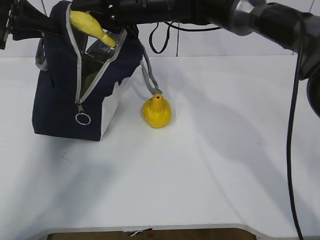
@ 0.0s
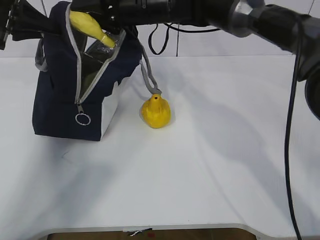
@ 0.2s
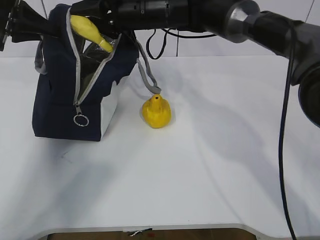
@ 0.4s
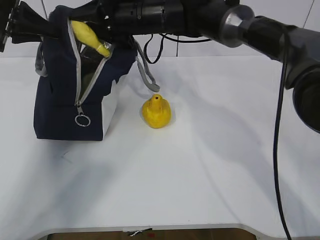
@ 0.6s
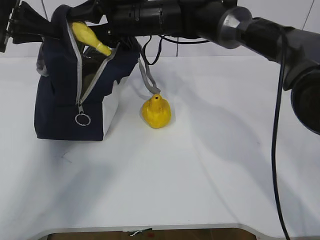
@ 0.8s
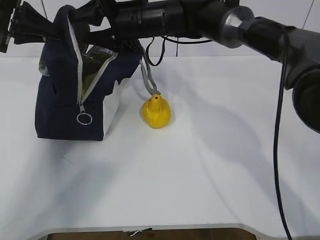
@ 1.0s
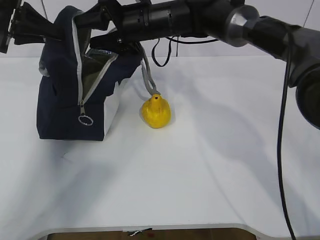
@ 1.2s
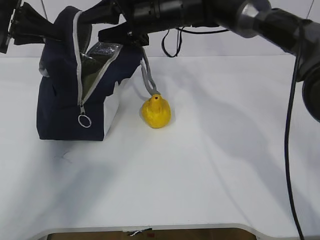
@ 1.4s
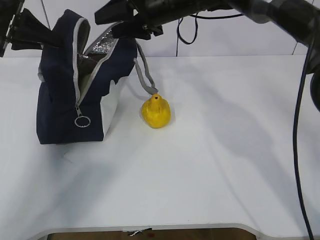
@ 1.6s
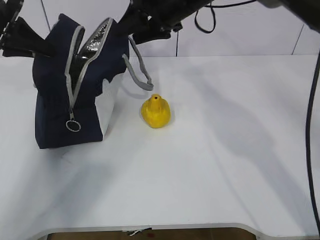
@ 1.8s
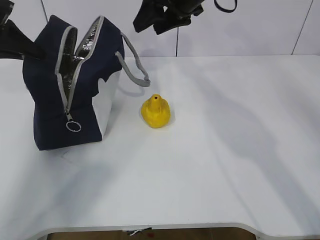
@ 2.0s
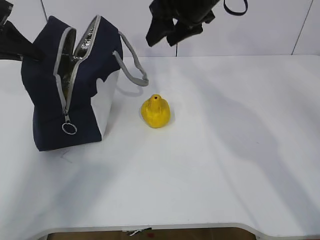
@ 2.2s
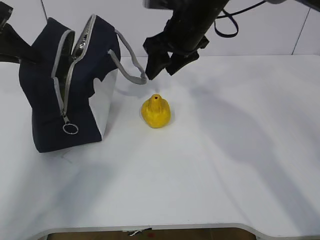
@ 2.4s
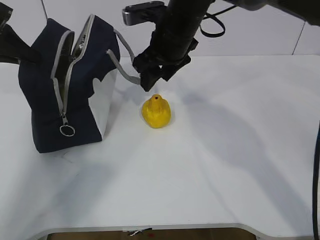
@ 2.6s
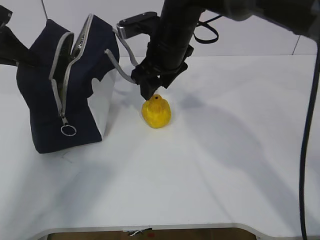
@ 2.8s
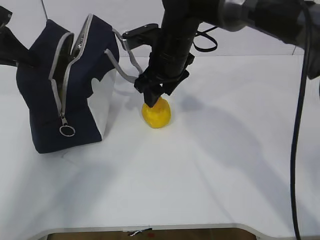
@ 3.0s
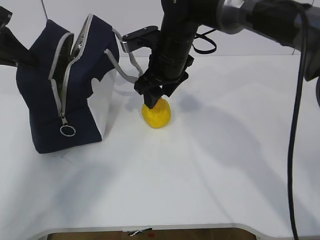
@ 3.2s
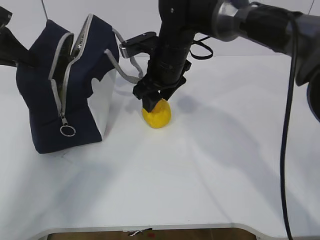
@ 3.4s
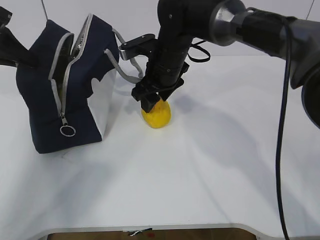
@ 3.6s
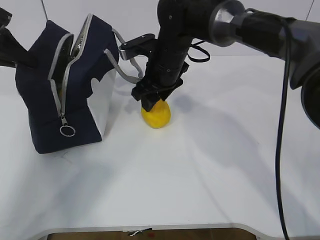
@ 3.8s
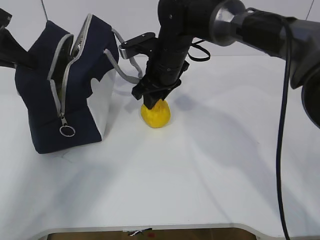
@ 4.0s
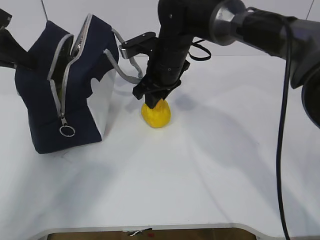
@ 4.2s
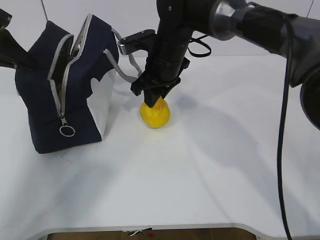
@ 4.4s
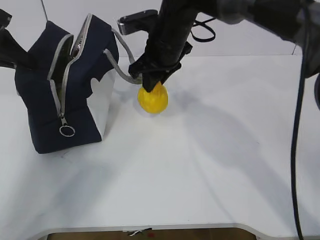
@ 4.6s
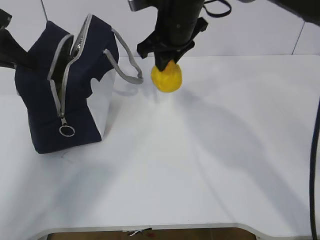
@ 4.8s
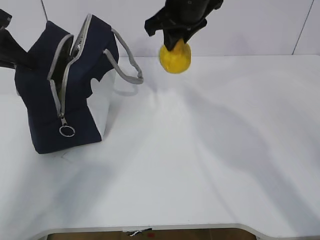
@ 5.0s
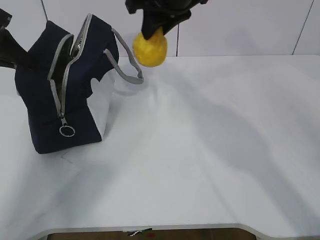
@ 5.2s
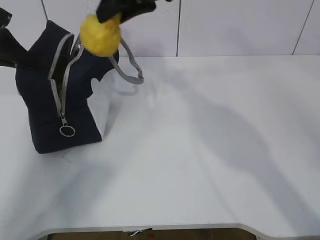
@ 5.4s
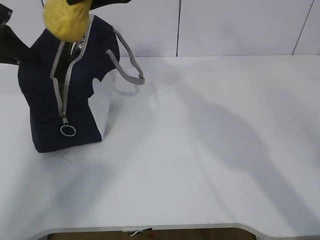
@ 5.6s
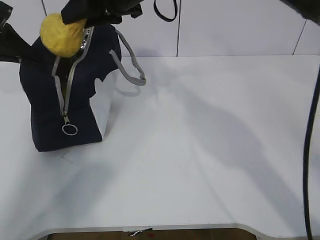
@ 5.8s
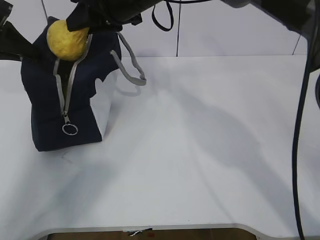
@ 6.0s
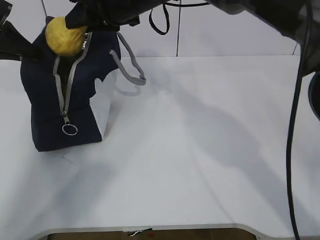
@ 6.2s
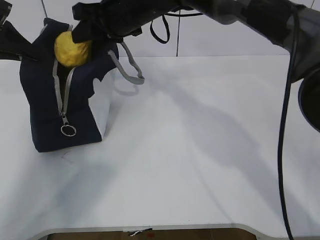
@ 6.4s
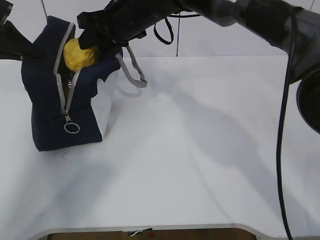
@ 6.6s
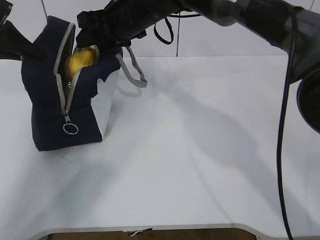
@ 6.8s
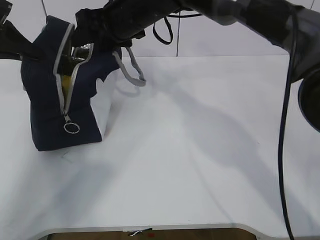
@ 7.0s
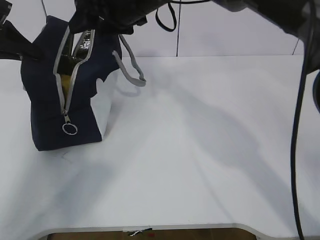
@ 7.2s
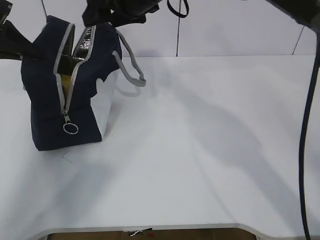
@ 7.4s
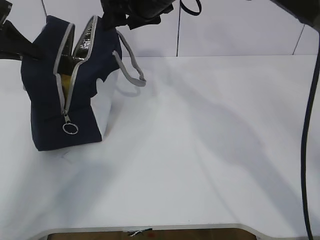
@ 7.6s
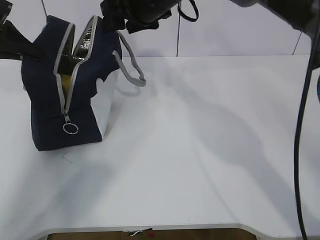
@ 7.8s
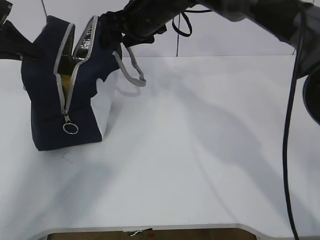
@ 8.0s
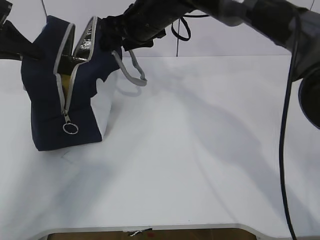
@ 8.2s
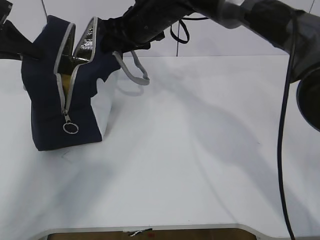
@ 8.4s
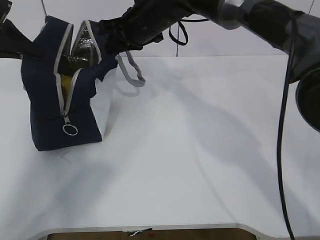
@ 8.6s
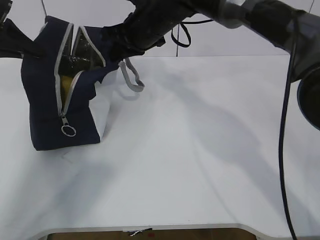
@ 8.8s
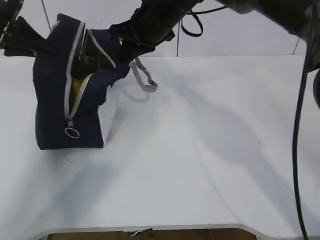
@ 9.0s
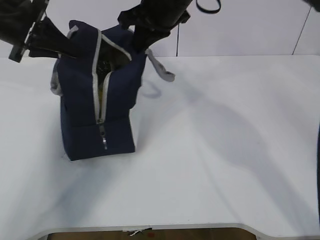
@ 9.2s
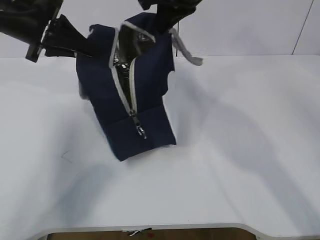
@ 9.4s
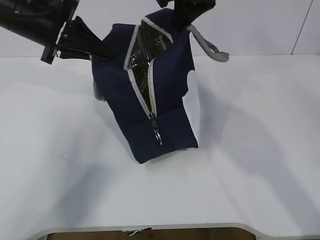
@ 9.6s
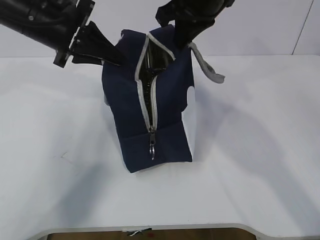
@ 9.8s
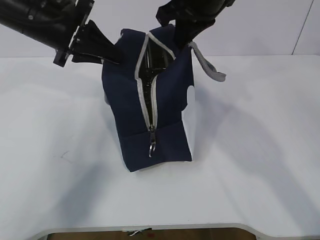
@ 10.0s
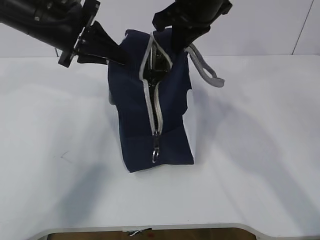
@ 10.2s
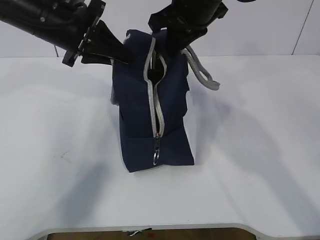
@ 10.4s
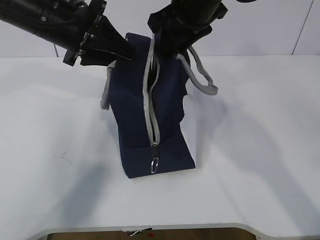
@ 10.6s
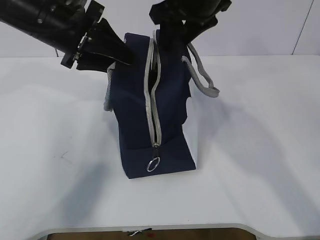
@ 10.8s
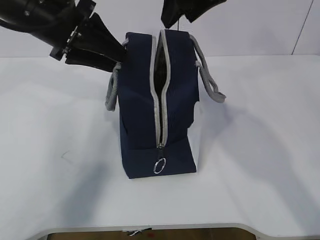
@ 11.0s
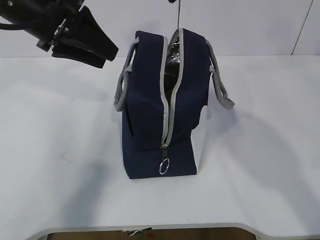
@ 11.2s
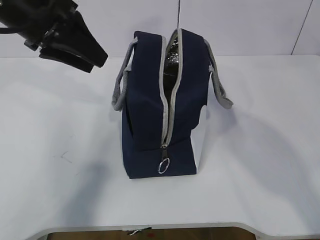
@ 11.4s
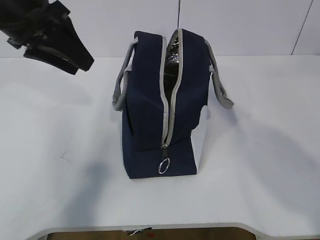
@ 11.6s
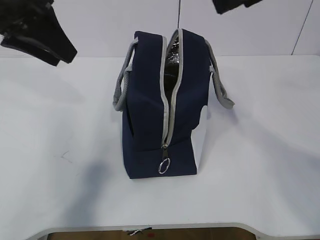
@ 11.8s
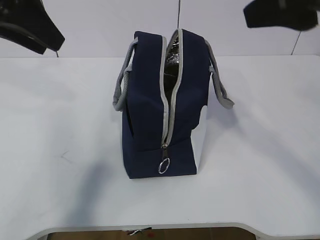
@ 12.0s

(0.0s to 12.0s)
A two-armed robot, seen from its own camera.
Step, 1.8s - 4.6s: Move the lunch bag to the right.
0.0s - 1.6s: The right gripper opens up.
1.6s - 3.0s: The right gripper moves downward, about 5 cm.
3.0s - 4.4s: The right gripper closes.
4.4s - 6.0s: The right gripper shifts roughly 10 cm upward.
6.0s - 7.6s: The right gripper opens up.
7.6s - 9.0s: The right gripper closes up.
9.0s - 10.4s: The right gripper is displaced to the right, upward and backward by about 10 cm. Meanwhile the left gripper goes about 15 cm to the right.
10.4s - 12.0s: The right gripper heads backward and to the right, covering some 20 cm, and opens up; the left gripper is displaced upward, backward and to the left by about 15 cm, and opens.

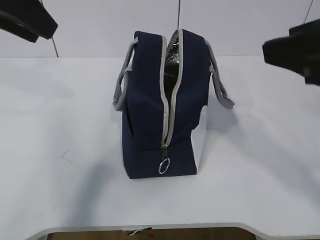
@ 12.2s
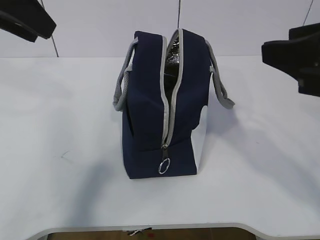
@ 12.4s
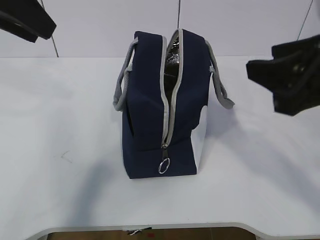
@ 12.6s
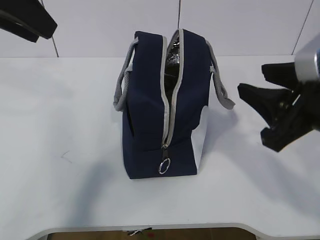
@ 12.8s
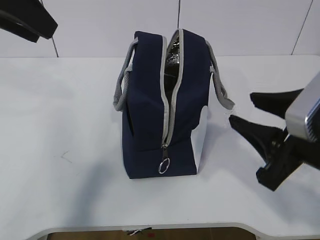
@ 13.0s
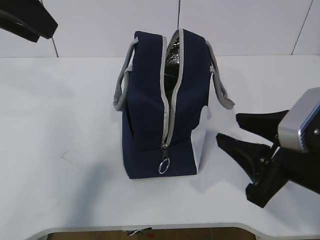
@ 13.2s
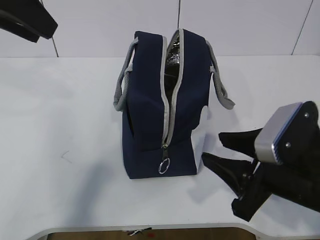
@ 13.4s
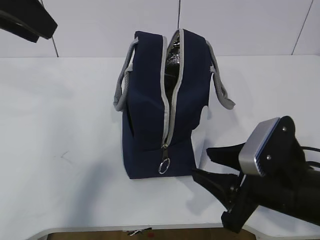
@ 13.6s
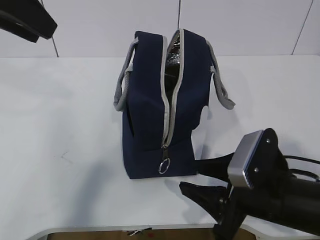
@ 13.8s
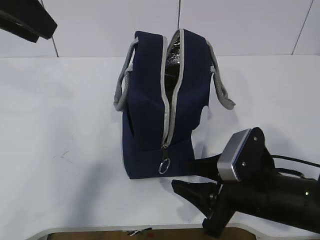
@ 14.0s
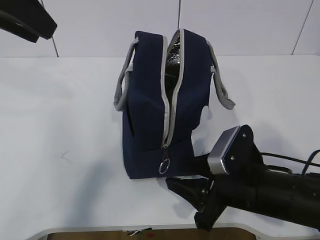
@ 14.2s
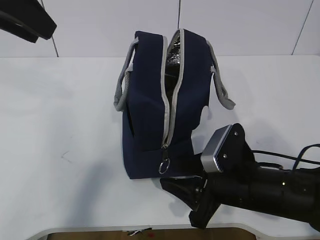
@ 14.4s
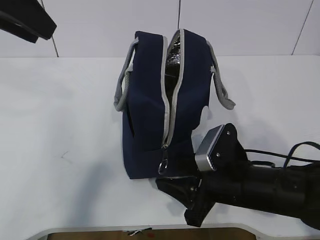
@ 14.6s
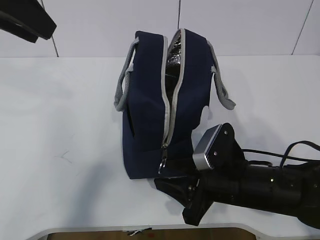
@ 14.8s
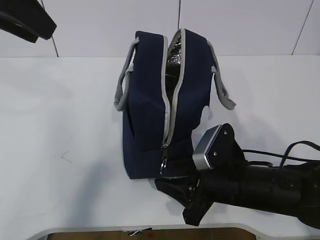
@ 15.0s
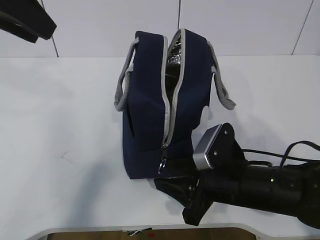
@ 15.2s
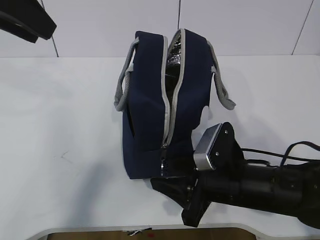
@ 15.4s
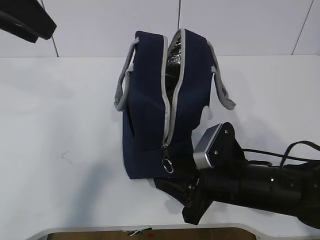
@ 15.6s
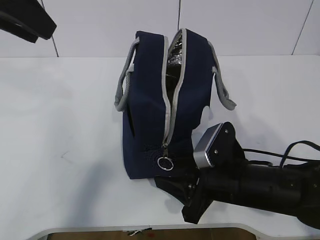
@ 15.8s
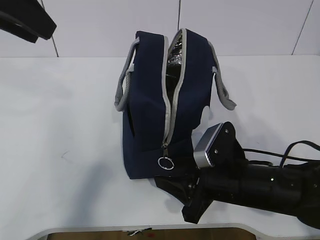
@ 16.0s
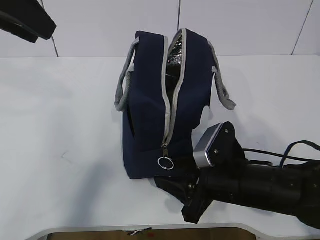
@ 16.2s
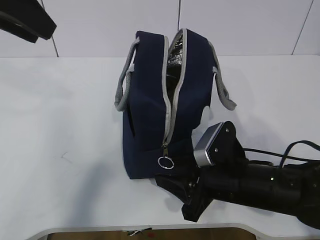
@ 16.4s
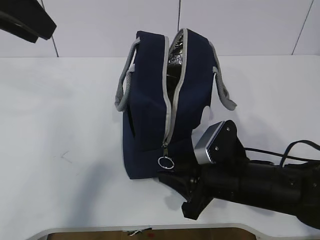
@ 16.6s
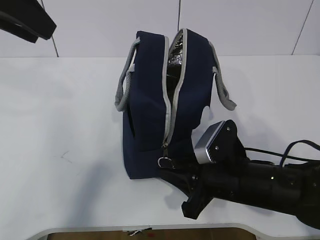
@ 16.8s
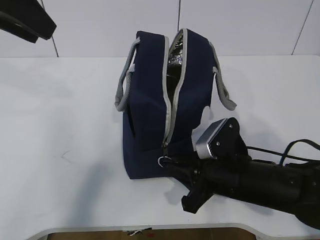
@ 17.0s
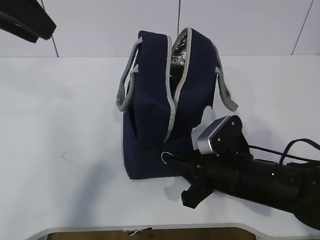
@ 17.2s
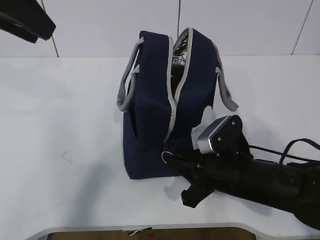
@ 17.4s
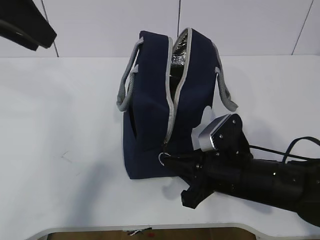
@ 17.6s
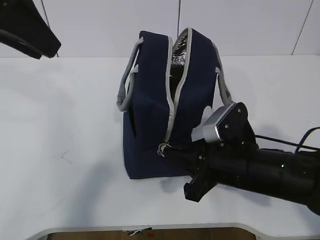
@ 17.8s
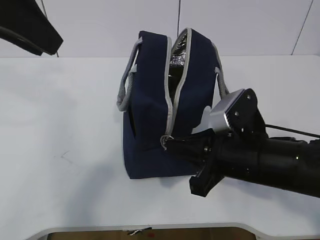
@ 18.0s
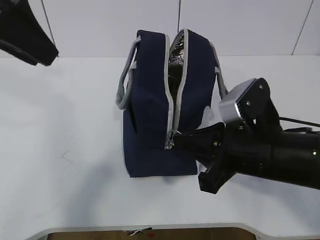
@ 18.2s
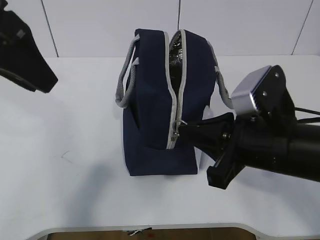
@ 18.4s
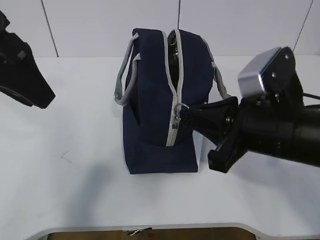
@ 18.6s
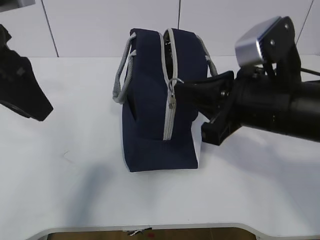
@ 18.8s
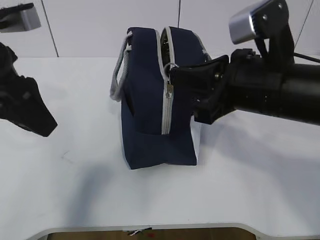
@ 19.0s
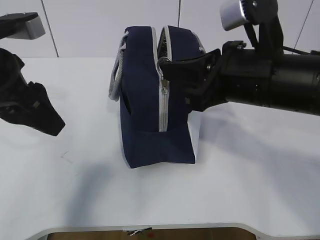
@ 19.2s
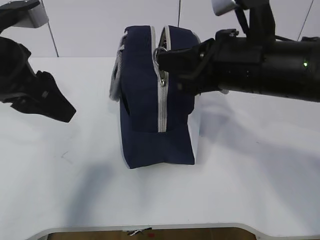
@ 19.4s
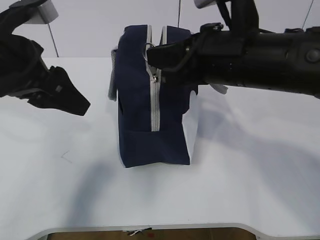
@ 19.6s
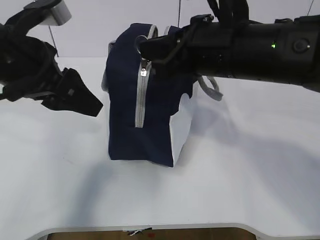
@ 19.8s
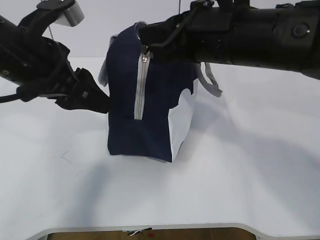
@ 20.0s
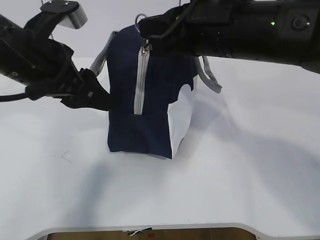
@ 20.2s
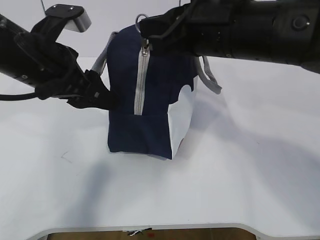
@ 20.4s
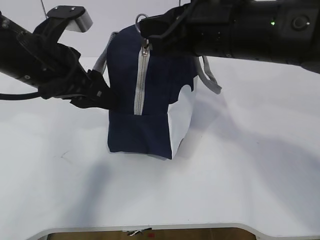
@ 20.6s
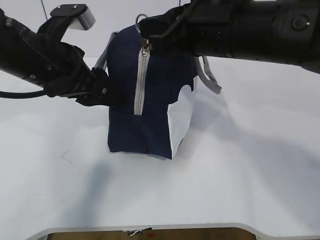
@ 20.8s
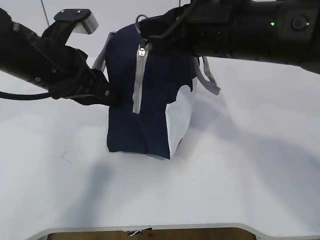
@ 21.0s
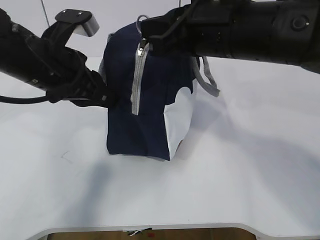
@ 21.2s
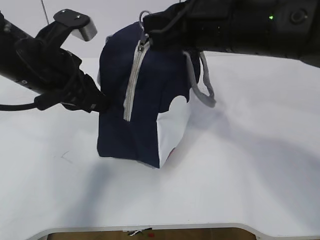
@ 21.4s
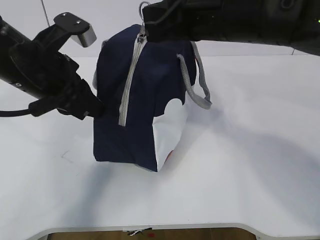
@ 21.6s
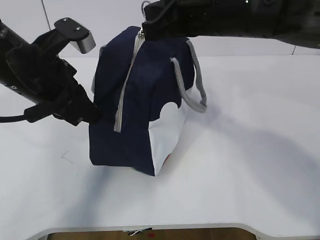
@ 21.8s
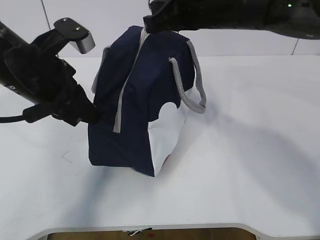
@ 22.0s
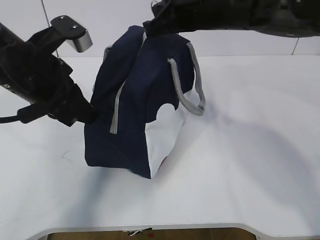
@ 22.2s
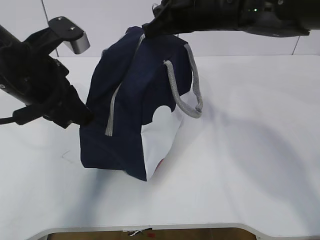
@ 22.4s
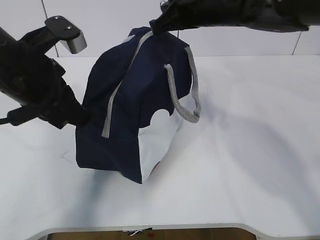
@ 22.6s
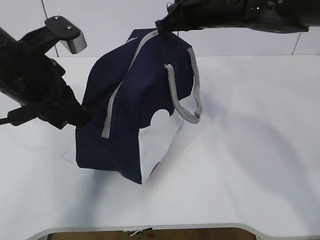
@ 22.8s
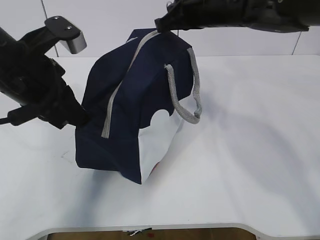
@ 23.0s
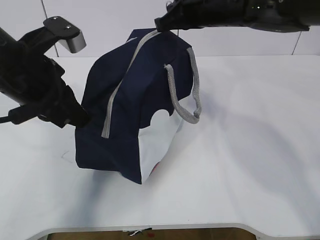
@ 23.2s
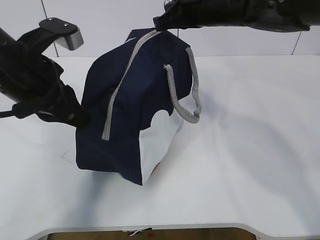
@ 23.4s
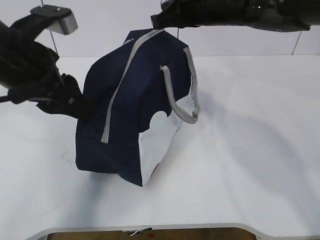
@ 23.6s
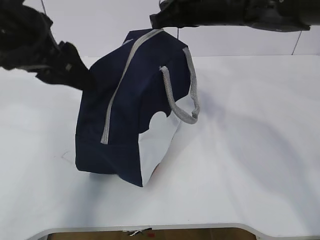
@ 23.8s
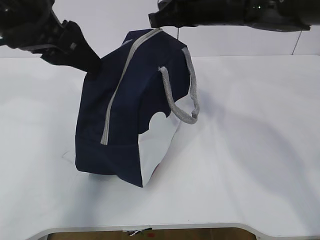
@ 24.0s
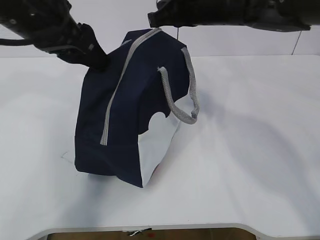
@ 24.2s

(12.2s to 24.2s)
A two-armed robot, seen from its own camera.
Step, 15.6s - 18.2s: Grab the lunch bag with your left hand.
Step, 18.4s - 23.4s: Pull the zipper with your right hand.
12.2s - 13.8s: The right gripper shifts roughly 20 cm downward.
13.8s - 15.2s: The right gripper shifts by approximately 5 cm.
15.2s - 16.6s: Both grippers stay about where they are.
16.6s - 18.2s: The right gripper shifts about 10 cm upward, and closes up.
18.2s - 19.8s: The right gripper moves upward and forward, some 10 cm. The left gripper moves downward, about 10 cm.
19.8s - 21.2s: The left gripper ends up roughly 5 cm from where it was, and closes up.
21.2s - 22.6s: The right gripper goes some 10 cm forward.
22.6s - 24.2s: The left gripper shifts about 5 cm upward, and opens.
